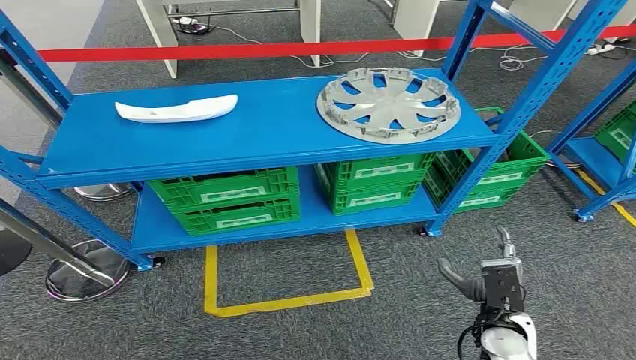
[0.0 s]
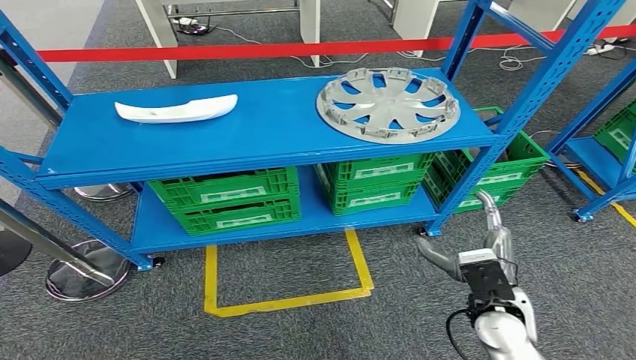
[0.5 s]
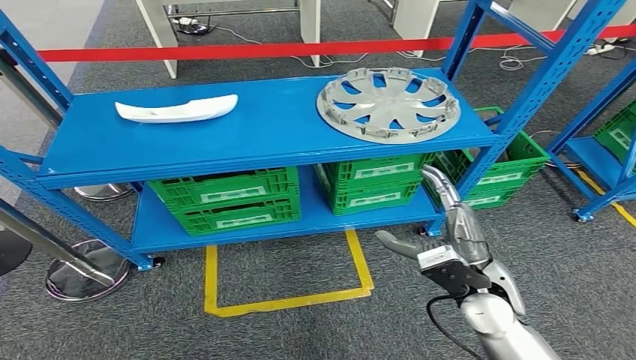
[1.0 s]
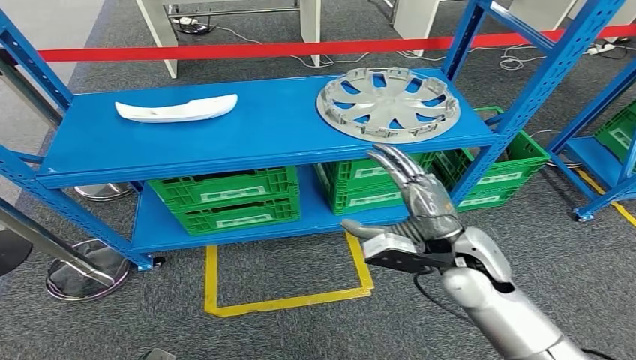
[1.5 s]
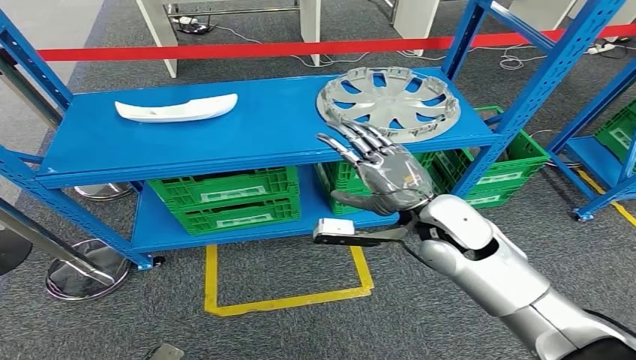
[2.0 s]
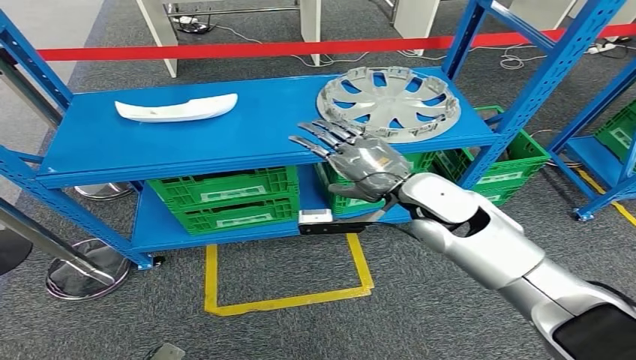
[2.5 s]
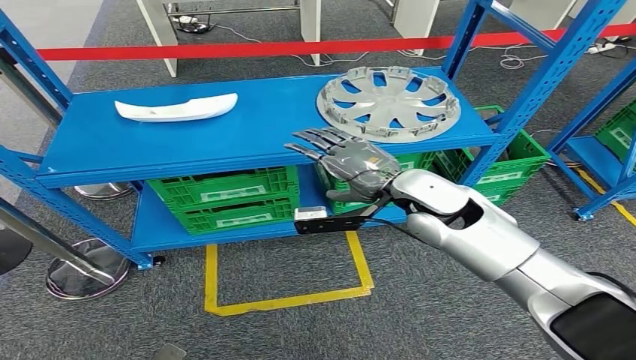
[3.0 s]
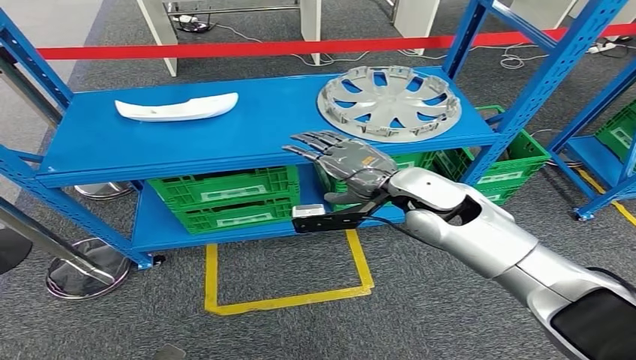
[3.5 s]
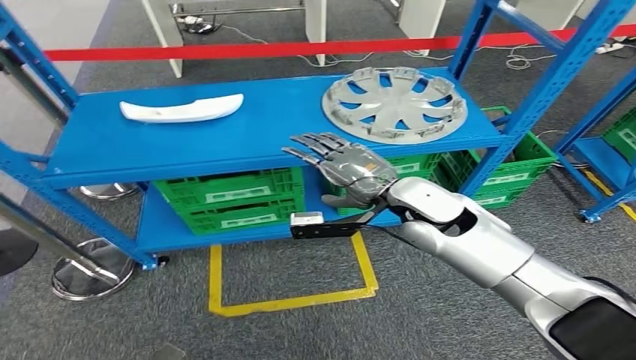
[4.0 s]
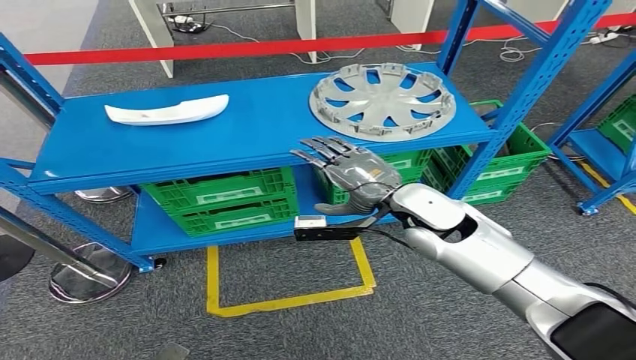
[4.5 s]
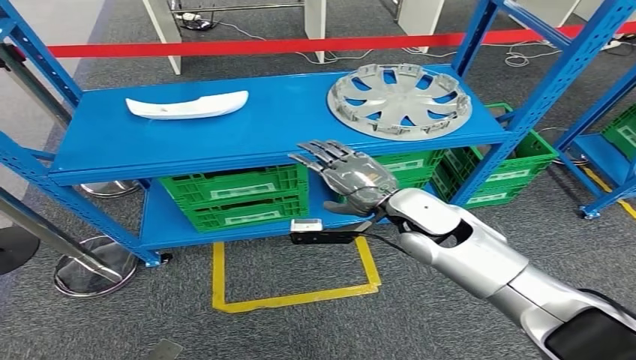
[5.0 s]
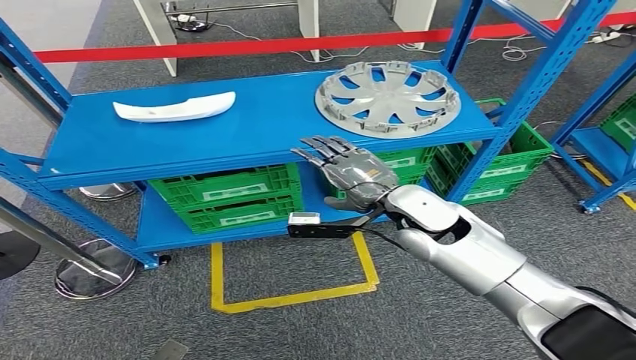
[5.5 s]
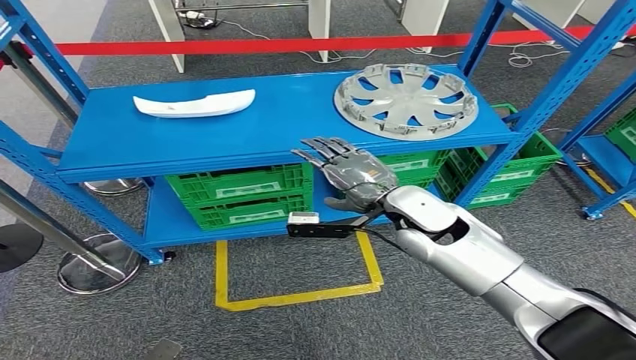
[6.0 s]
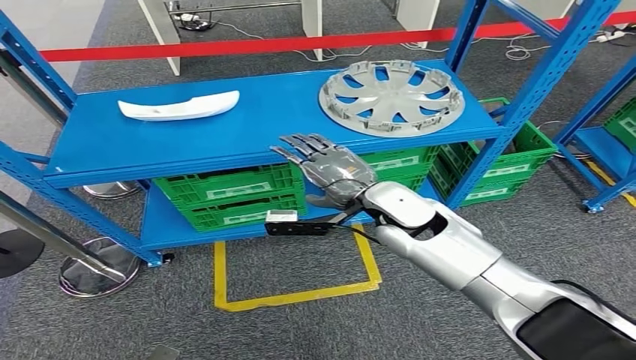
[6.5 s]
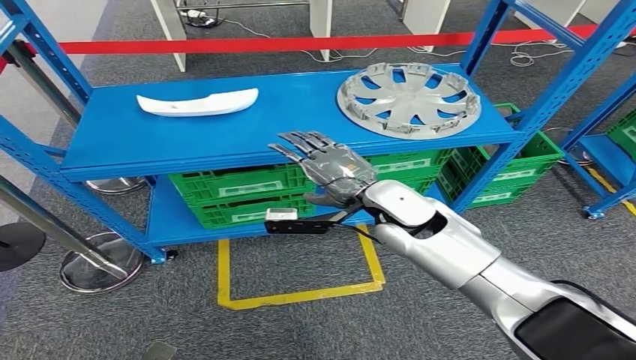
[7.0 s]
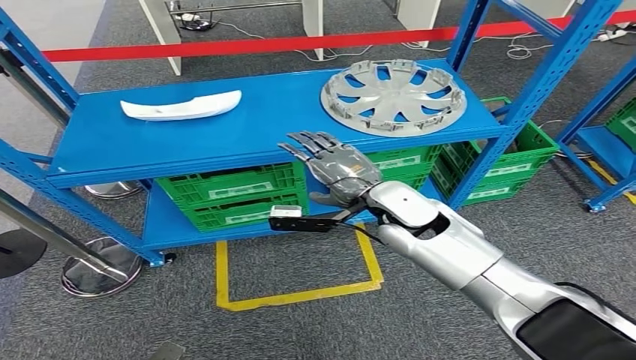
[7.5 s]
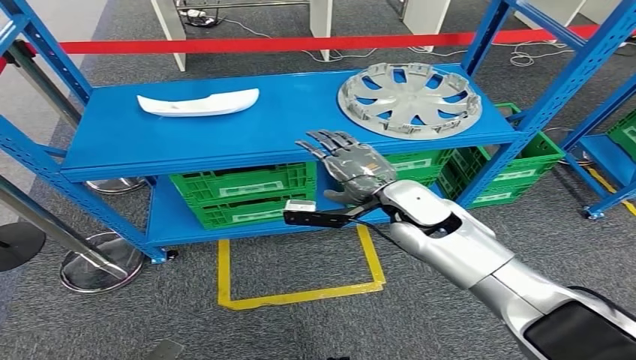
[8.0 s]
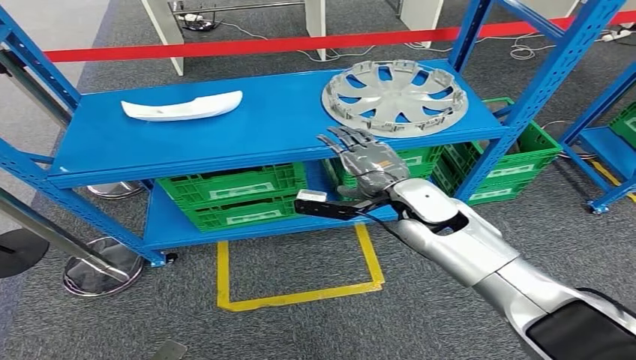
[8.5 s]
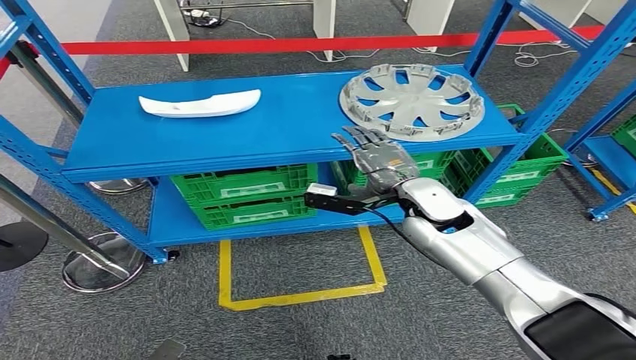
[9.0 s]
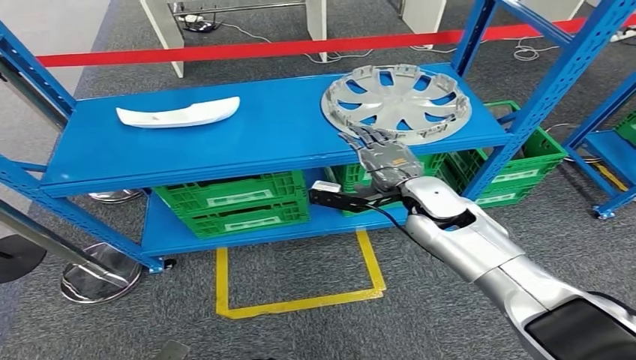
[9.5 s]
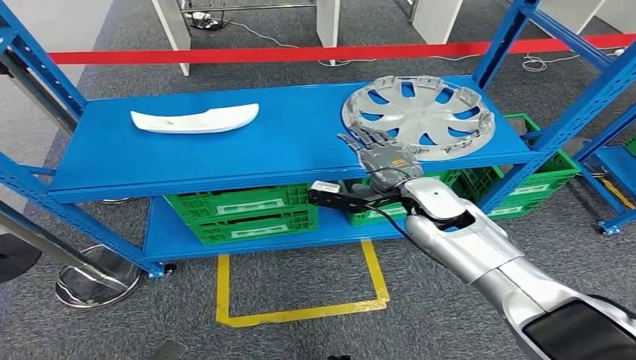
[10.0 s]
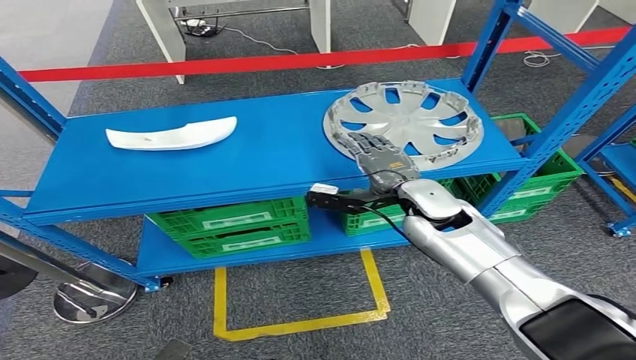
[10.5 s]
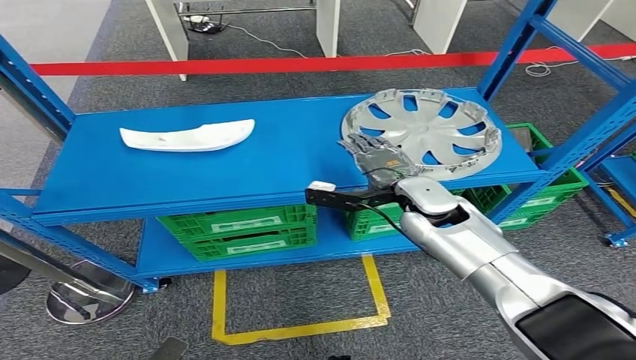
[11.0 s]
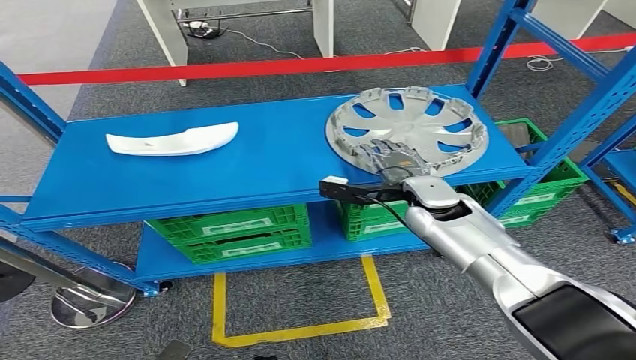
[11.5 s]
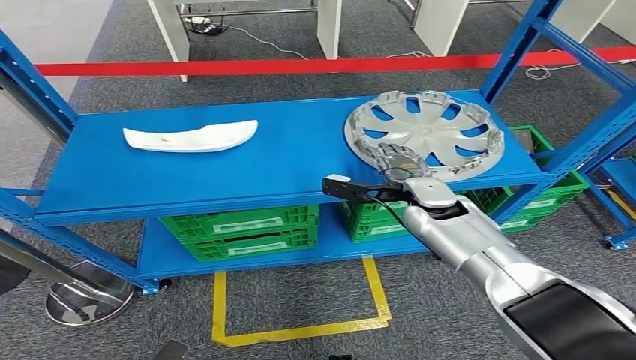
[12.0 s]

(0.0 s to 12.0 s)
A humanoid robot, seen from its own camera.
6.0 s - 8.0 s: The hands make only small movements.

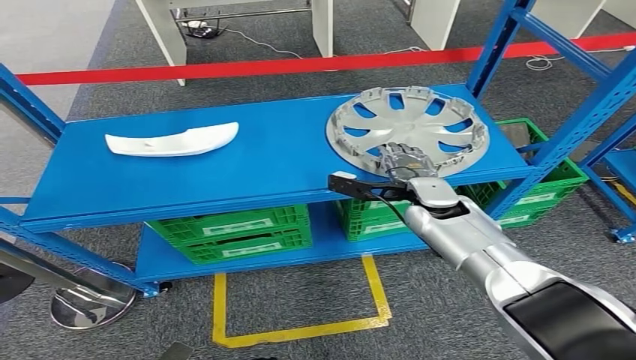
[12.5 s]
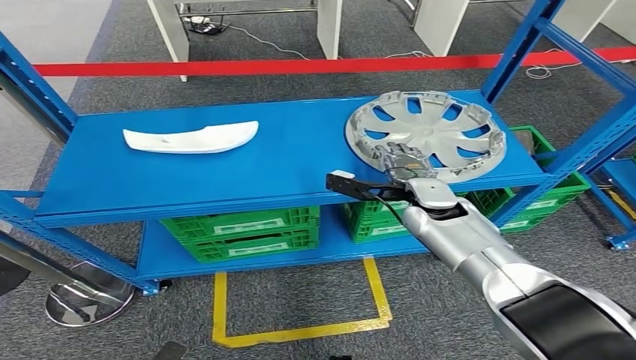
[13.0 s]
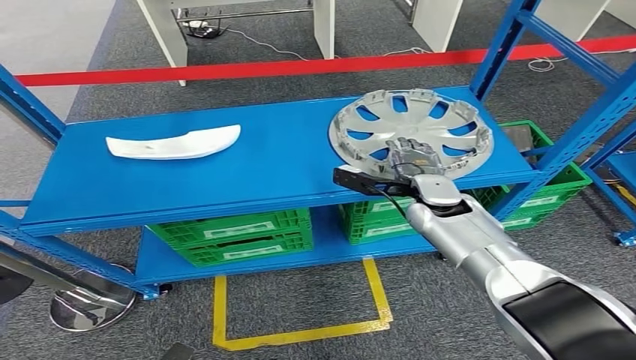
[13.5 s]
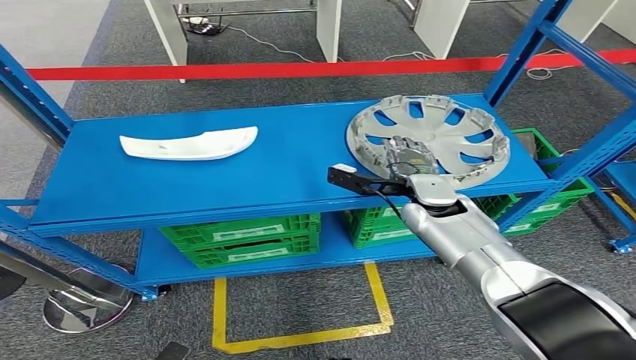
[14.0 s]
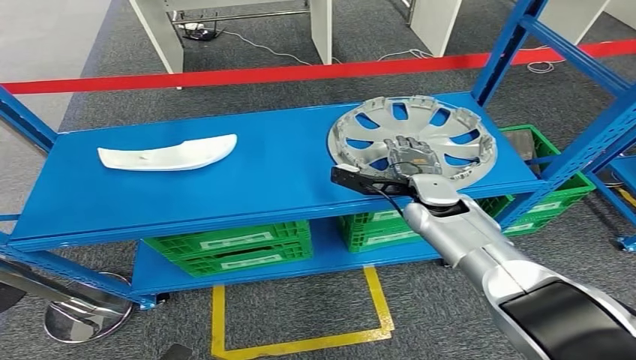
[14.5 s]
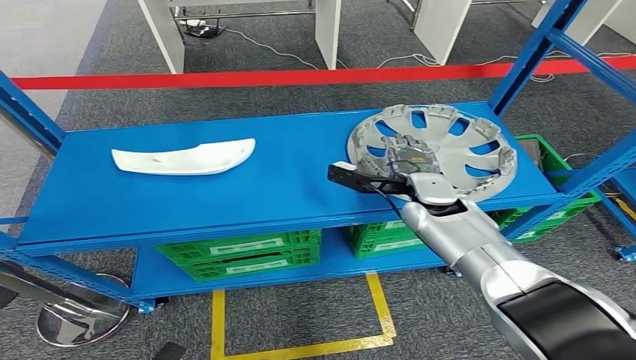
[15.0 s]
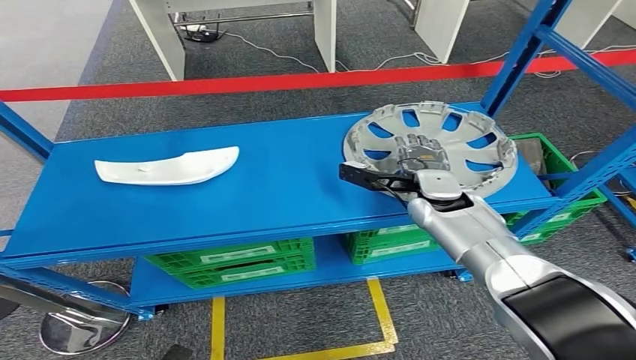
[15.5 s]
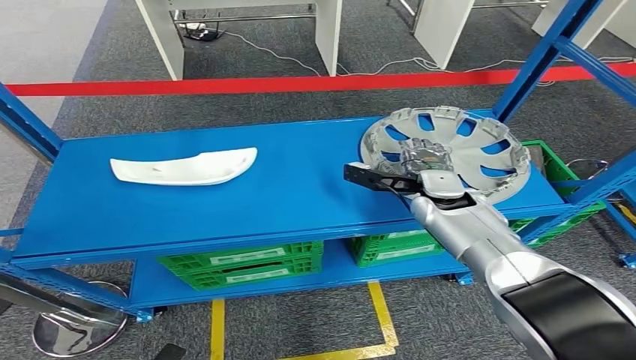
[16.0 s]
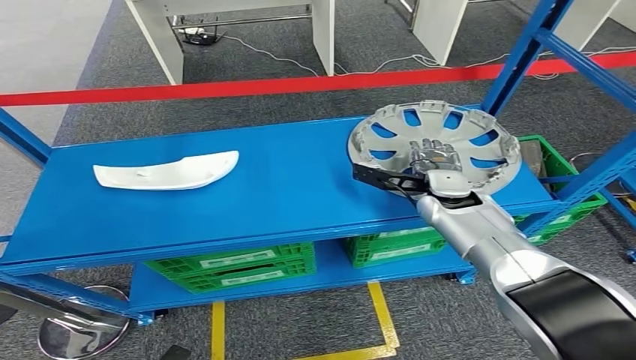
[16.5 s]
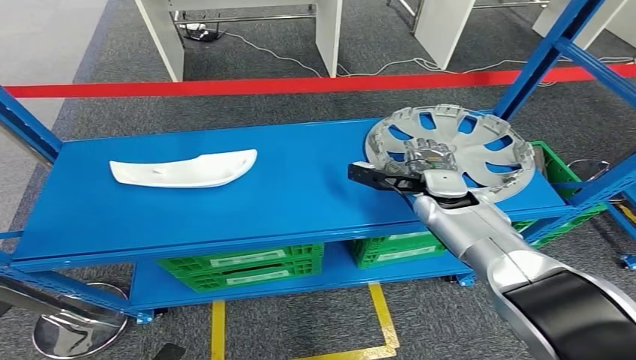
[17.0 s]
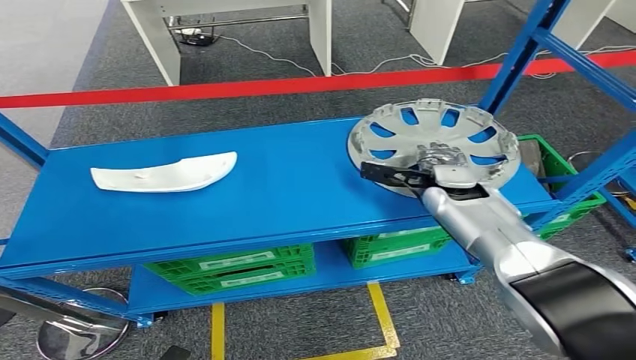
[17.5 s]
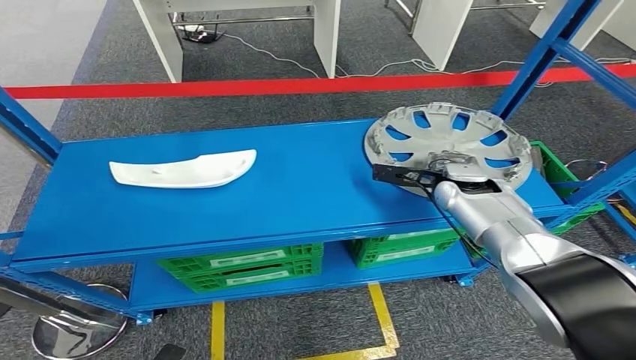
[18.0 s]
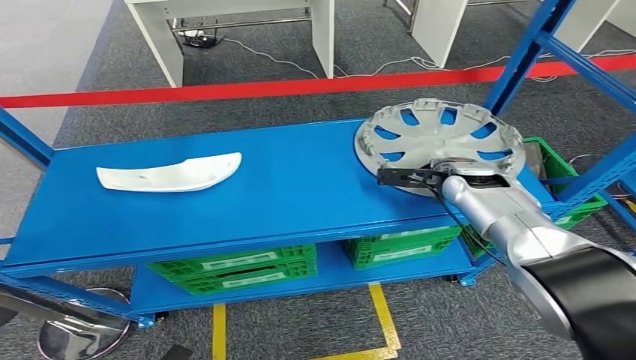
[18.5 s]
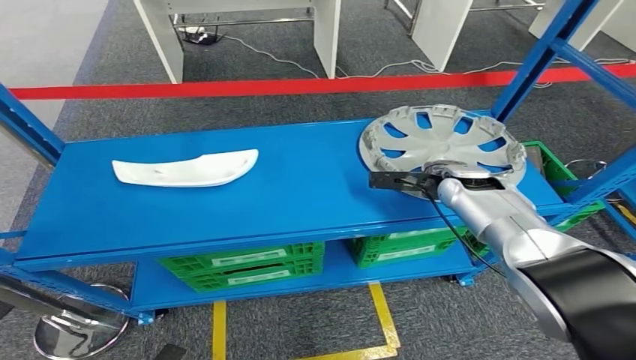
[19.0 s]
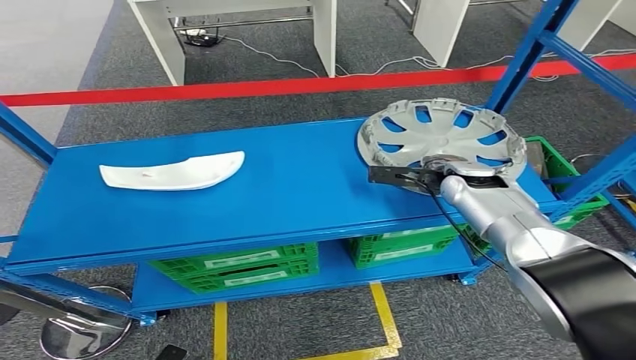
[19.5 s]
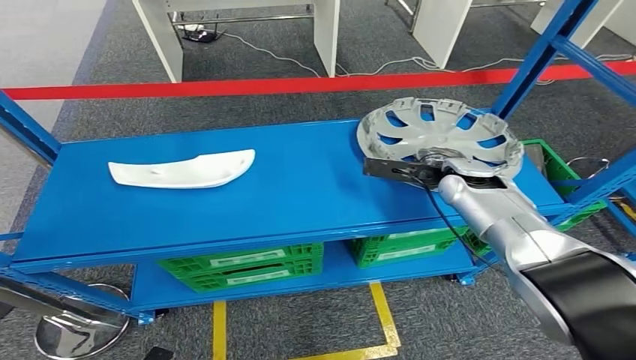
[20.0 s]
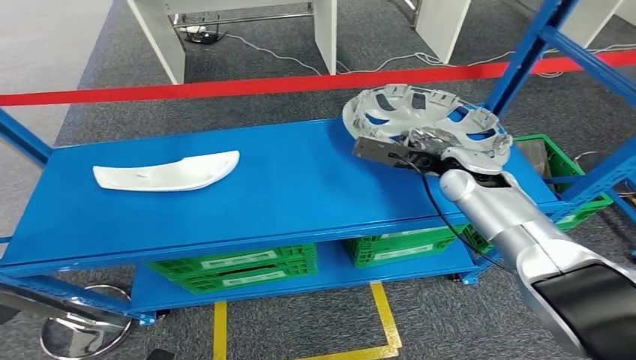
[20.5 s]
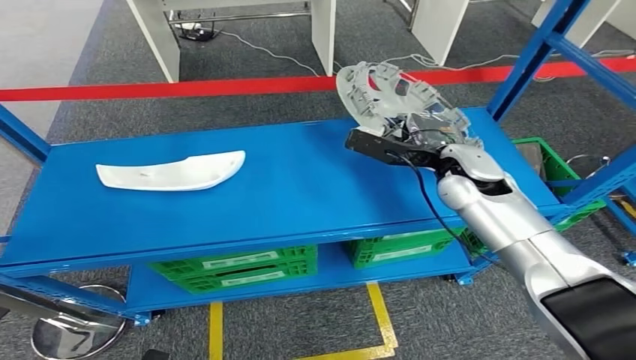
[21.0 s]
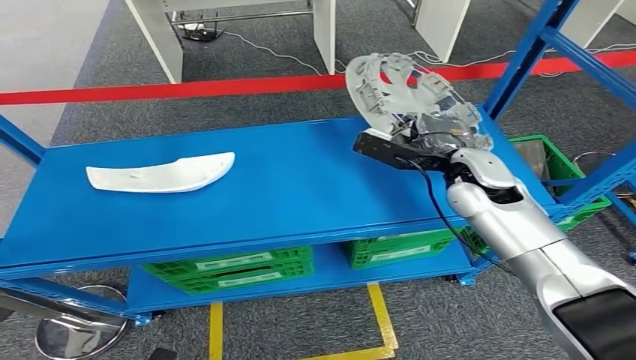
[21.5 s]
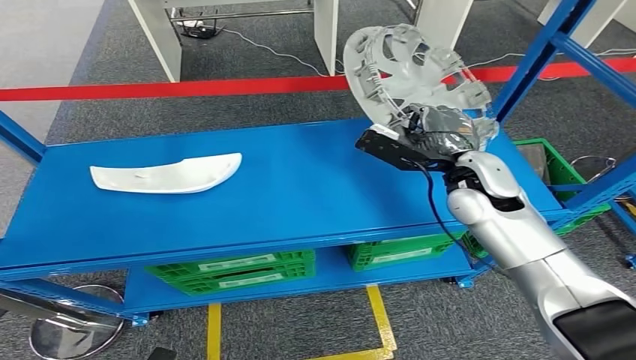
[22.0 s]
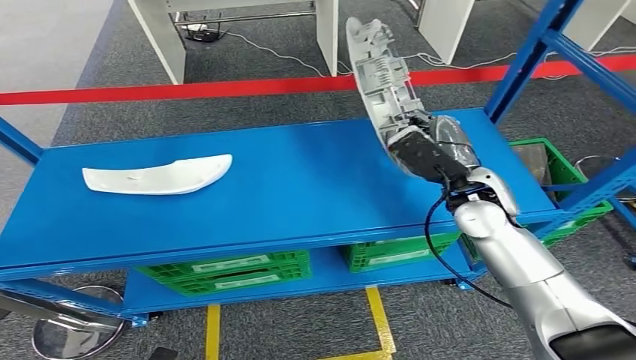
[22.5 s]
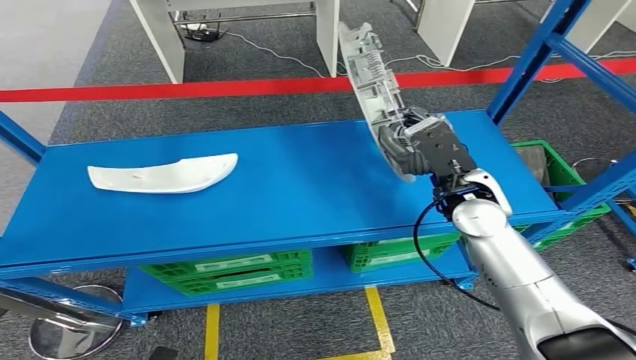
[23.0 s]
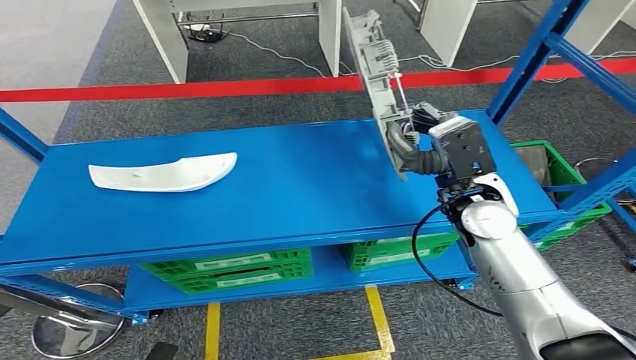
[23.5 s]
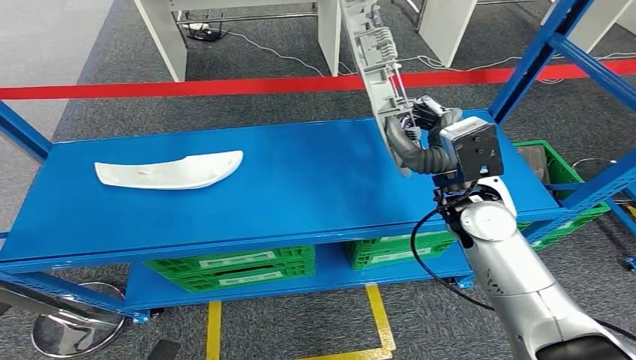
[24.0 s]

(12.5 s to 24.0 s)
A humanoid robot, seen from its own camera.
16.5 s - 18.5 s: The right hand travels to the right by about 5 cm.
18.5 s - 20.0 s: The hands move only a little.
